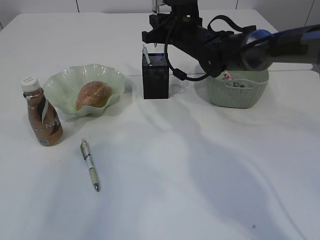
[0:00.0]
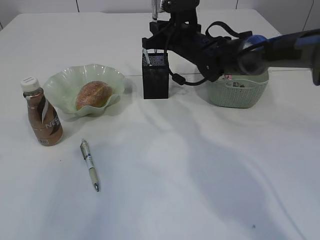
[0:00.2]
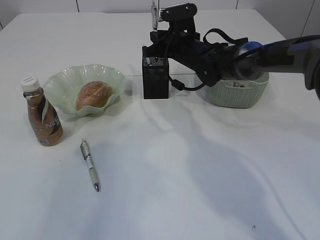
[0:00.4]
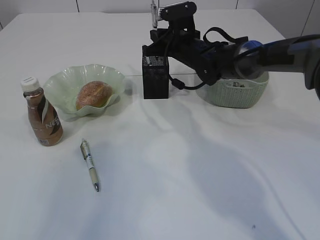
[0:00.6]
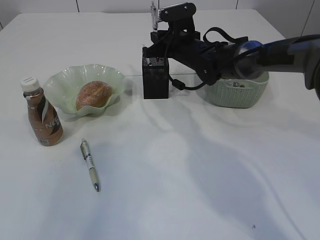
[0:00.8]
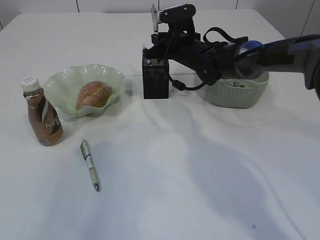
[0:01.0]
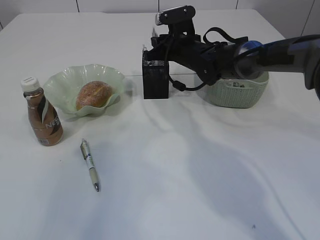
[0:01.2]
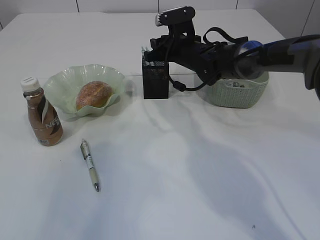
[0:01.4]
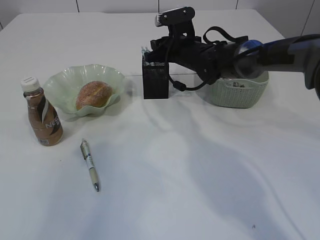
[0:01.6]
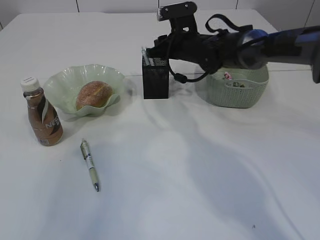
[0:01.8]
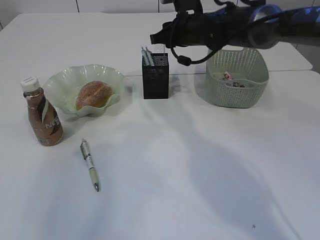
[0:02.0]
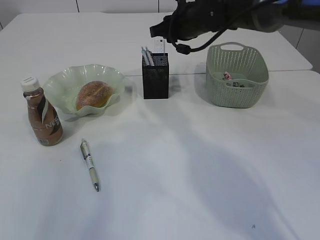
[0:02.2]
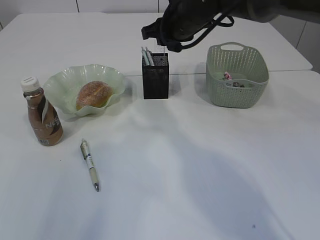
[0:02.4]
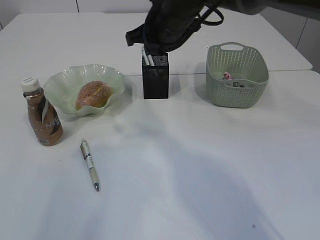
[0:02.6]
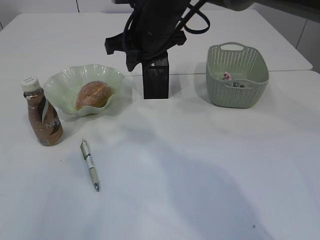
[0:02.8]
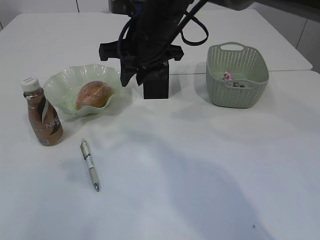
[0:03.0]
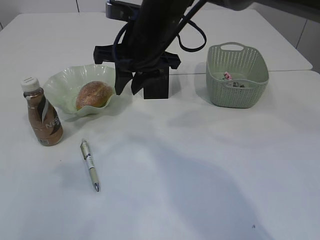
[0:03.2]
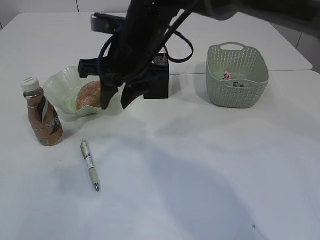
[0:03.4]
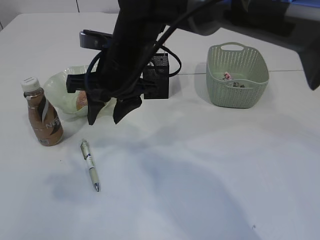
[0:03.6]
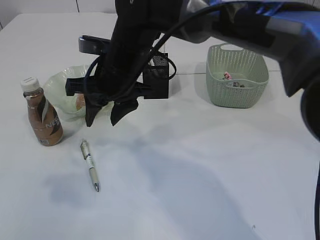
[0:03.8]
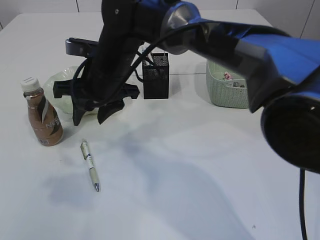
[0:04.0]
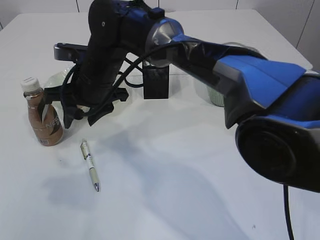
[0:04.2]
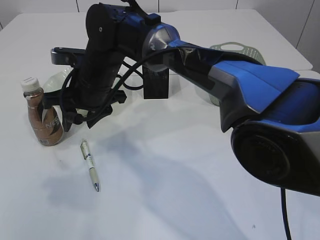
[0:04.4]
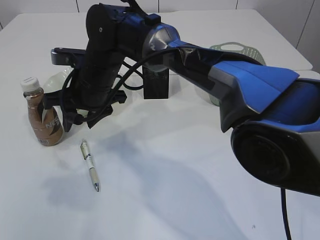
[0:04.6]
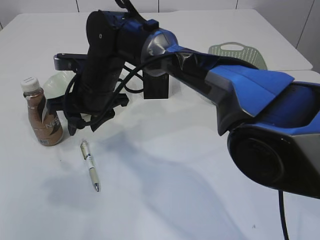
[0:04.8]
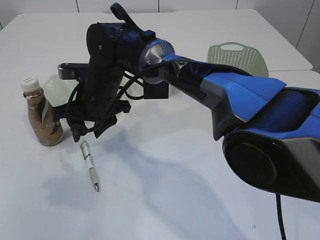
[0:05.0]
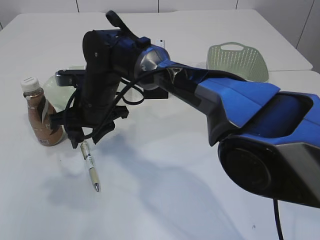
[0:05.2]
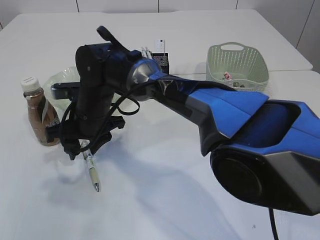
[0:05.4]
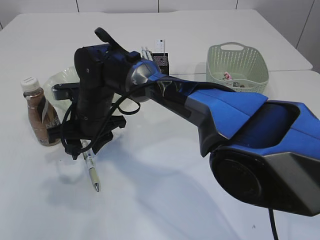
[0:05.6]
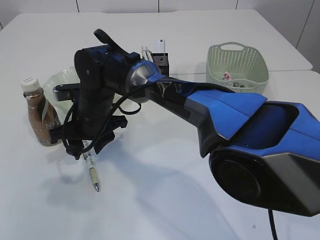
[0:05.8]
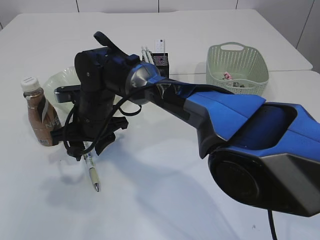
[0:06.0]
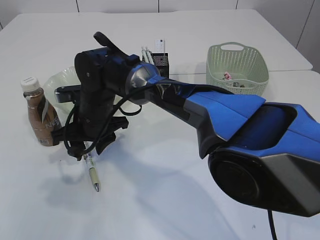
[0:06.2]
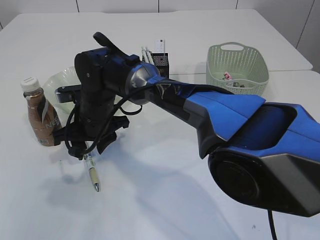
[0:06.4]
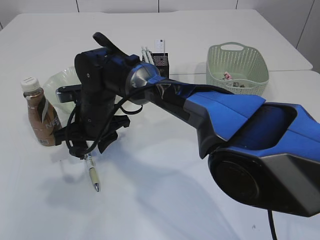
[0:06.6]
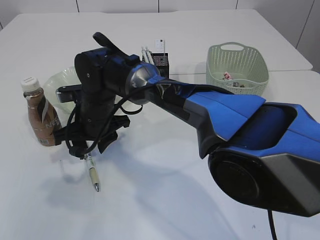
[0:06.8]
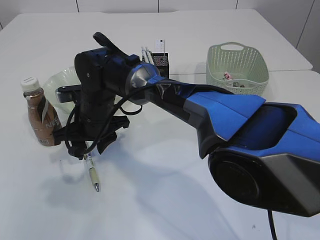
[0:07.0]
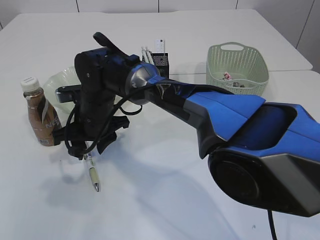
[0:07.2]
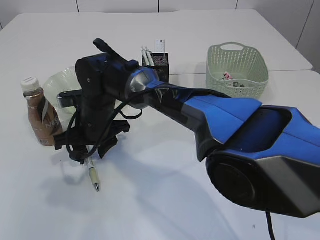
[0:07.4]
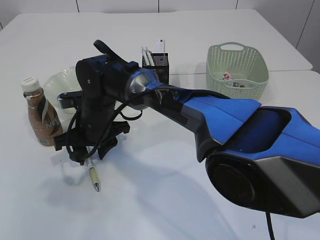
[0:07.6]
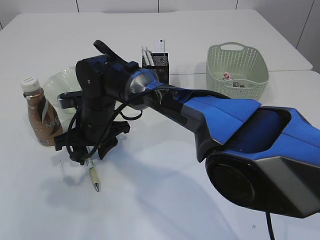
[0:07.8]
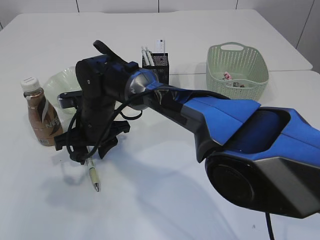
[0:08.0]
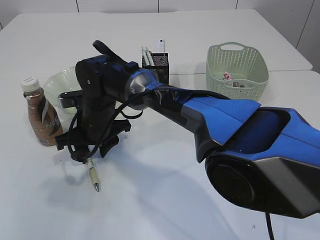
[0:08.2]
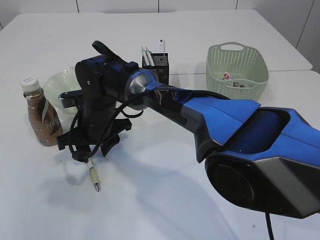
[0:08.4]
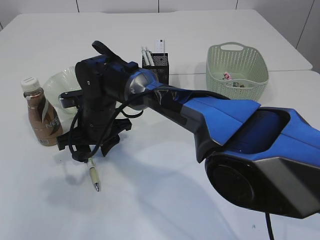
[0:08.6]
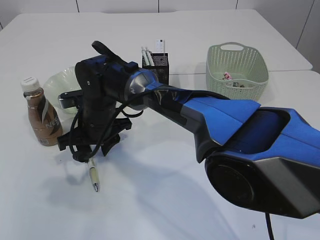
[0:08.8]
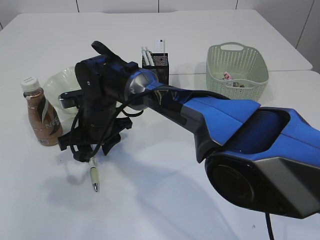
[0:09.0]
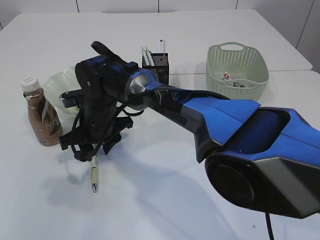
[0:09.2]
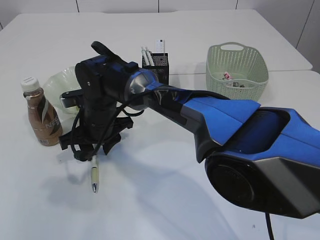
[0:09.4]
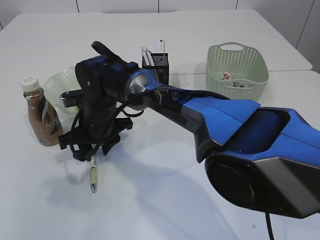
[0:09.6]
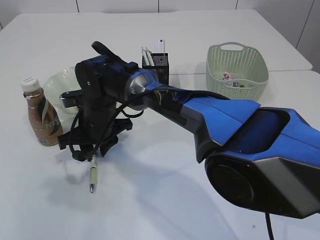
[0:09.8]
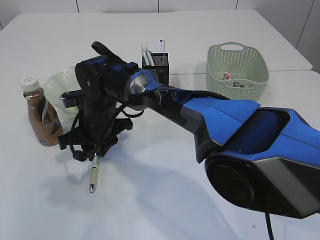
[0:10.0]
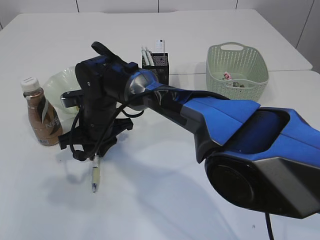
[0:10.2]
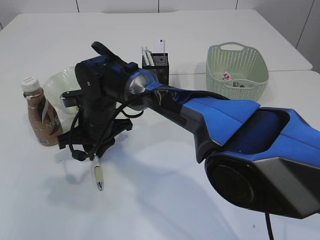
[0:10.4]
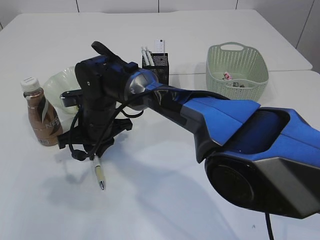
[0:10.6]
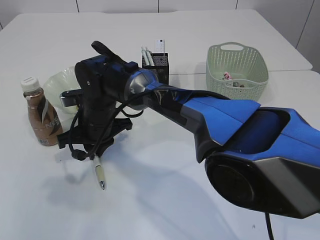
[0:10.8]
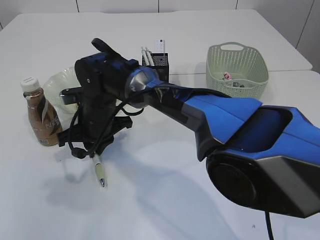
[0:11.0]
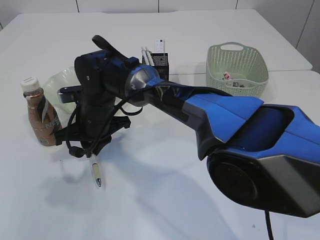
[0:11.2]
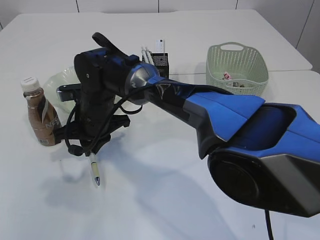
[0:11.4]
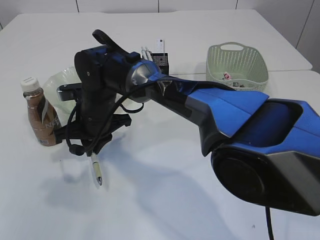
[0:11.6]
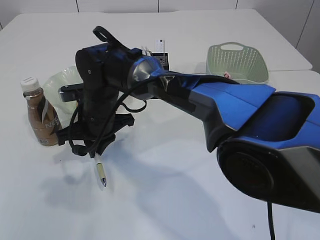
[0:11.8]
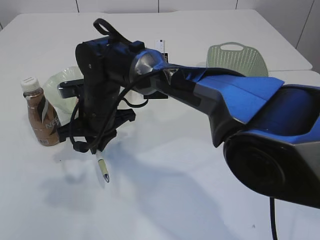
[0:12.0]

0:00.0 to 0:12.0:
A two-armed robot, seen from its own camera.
Step, 0:00.0 to 0:02.2: Place the pen into the pen holder.
0:00.0 to 0:01.6: The right gripper opens.
0:01.6 to 0:03.0: The right gripper heads backward, upward and to the left, covering about 15 cm.
0:03.0 to 0:04.4: The right gripper shifts approximately 10 cm to the left and downward.
0:04.4 to 0:06.0: The right gripper travels downward by some 5 cm.
0:06.0 to 0:07.6: Both grippers stay put.
0:07.6 to 0:09.0: Both grippers stay about where they are.
0:09.0 to 0:10.4: The right gripper closes its fingers.

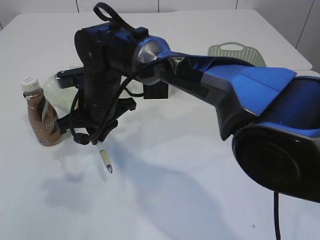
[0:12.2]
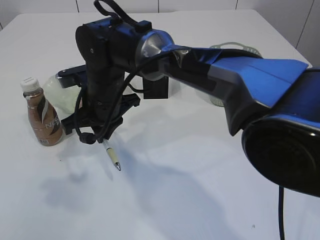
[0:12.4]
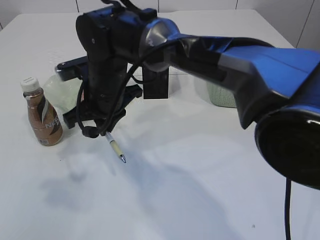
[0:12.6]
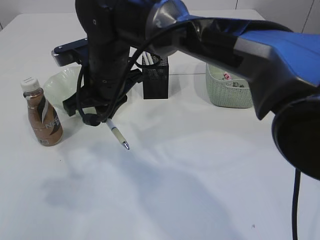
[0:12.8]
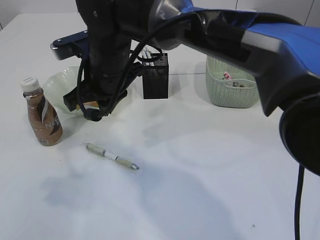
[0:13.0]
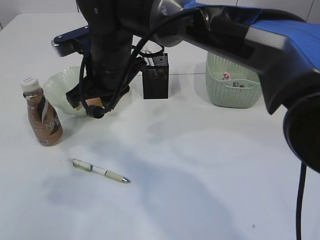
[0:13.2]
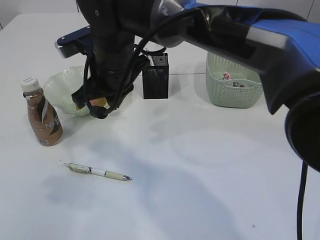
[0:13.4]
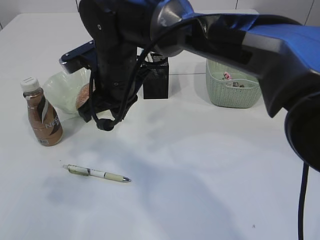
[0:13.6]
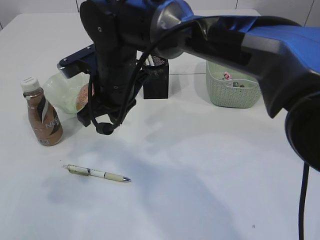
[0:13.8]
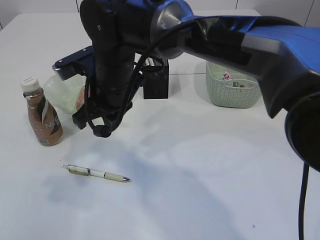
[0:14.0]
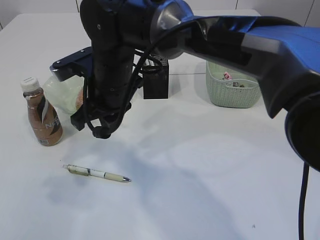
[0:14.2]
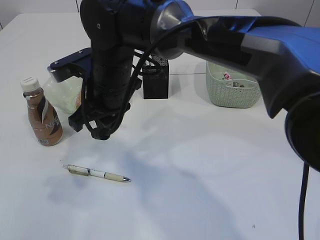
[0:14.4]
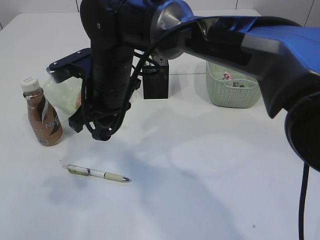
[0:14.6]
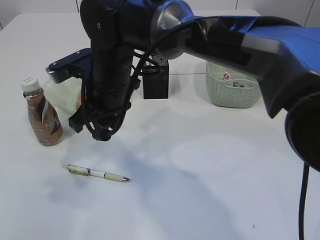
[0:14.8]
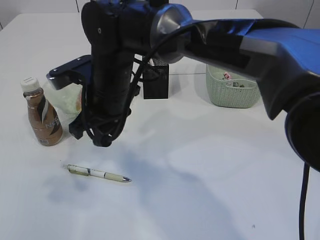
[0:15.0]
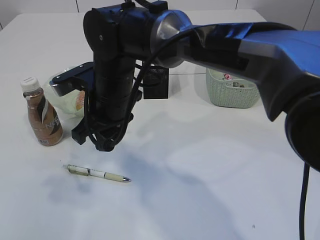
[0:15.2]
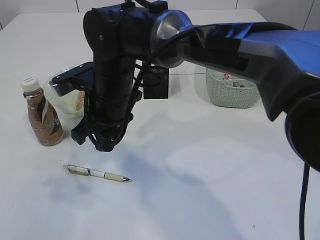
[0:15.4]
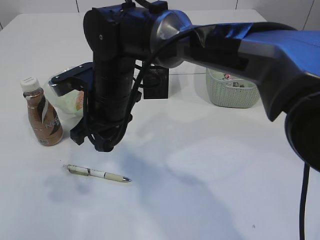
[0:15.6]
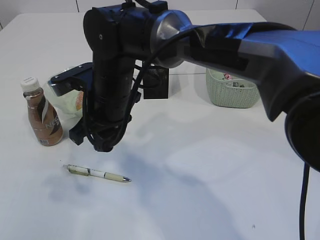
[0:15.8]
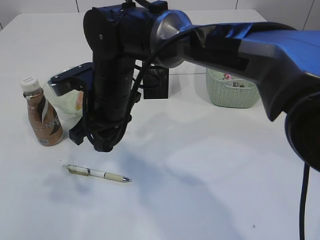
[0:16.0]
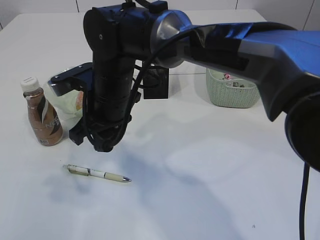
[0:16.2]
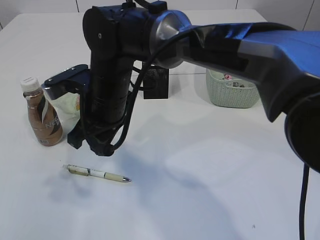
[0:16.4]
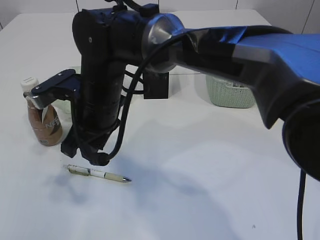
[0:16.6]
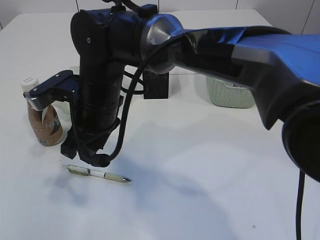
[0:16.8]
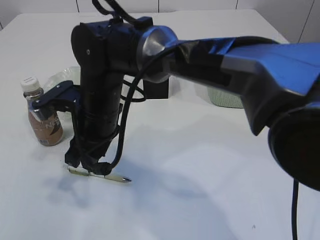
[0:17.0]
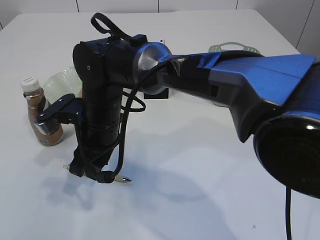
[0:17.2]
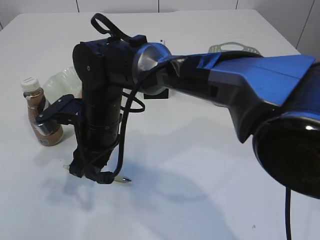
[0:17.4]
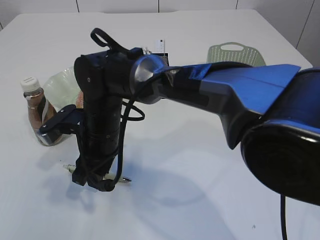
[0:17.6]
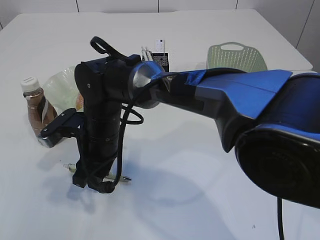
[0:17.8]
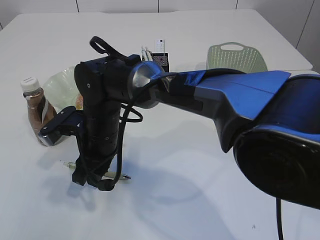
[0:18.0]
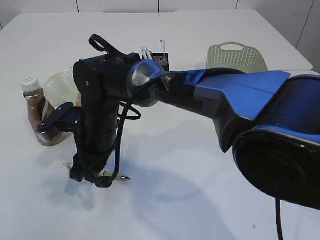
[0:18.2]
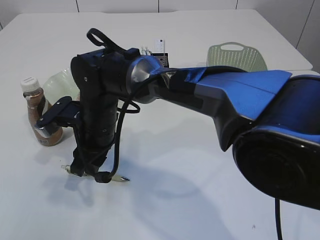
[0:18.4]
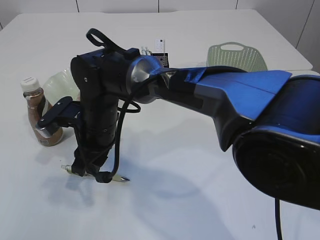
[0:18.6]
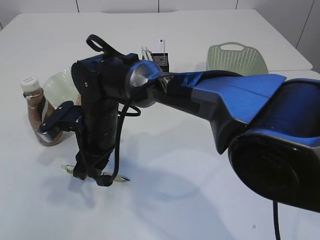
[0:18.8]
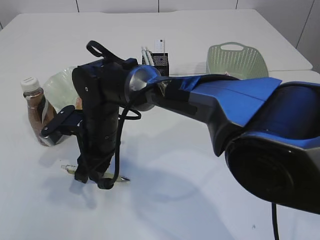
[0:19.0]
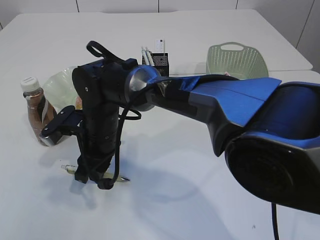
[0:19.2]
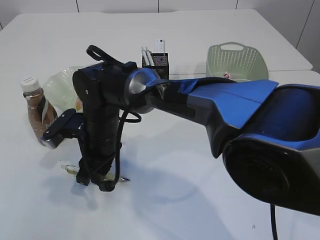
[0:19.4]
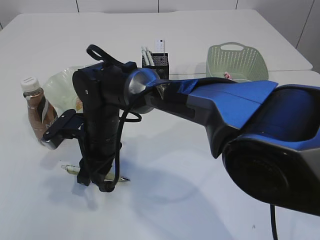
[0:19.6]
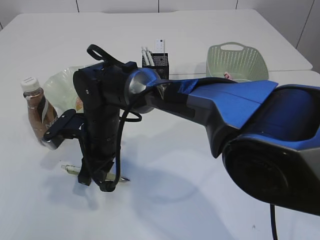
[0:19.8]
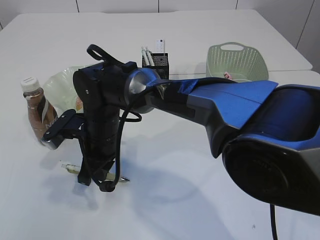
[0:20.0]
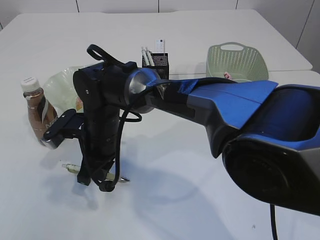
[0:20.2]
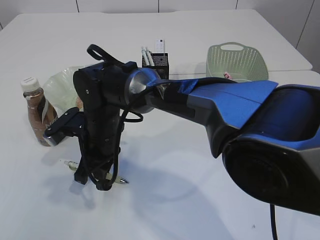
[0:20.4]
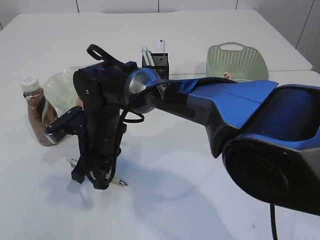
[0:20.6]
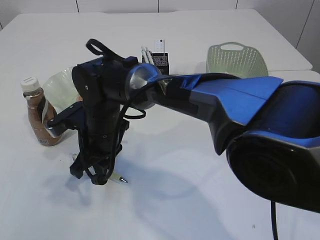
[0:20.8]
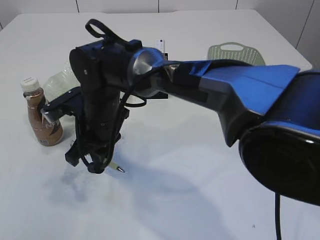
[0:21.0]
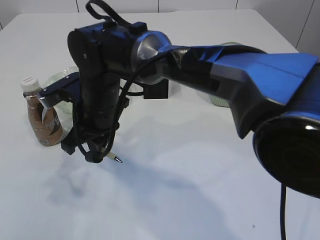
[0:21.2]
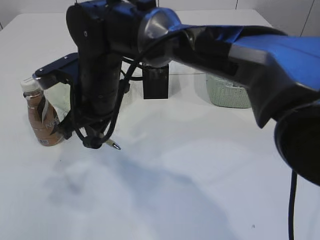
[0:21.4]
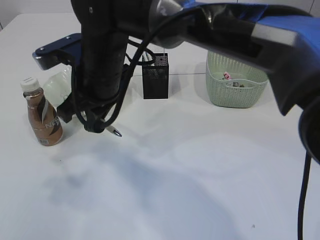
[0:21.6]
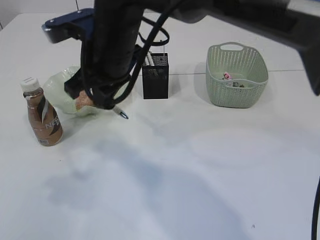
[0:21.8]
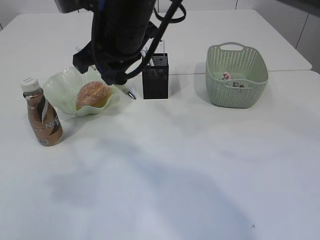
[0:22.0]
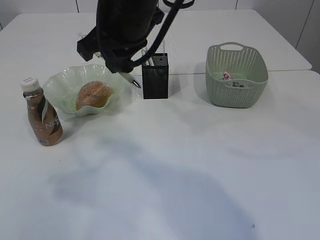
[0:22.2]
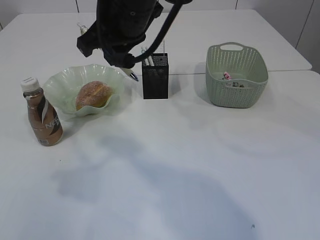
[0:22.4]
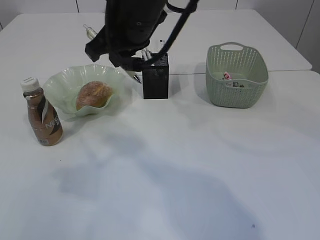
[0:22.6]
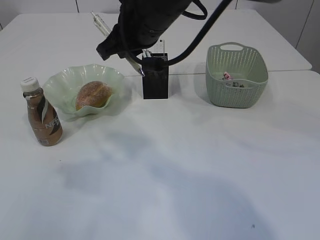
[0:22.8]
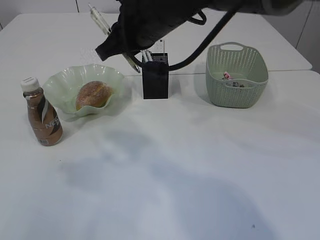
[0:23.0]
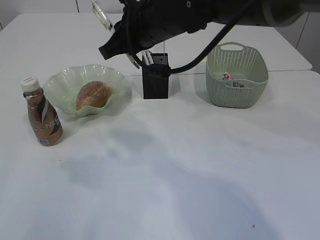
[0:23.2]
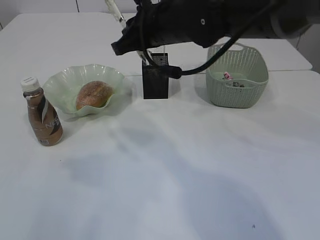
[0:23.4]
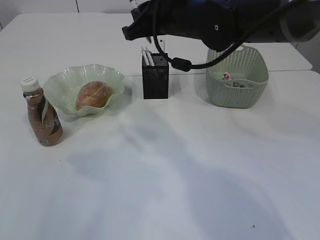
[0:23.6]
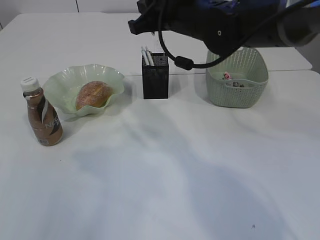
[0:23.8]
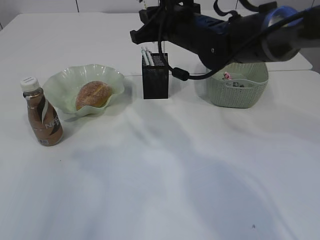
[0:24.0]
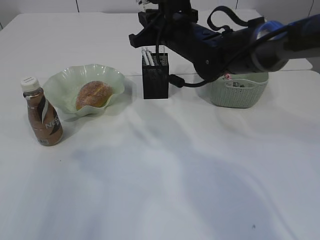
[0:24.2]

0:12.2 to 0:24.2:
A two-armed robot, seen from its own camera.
Step, 0:12.2 to 0:21.4: Pick up the pen with right arm.
0:12.2 to 0:13.8: The right gripper changes place by about 5 cm.
0:13.8 to 0:15.2: The grippers move only a little.
0:15.2 to 0:16.6: The grippers make only small movements.
0:16.6 to 0:18.2: The right gripper goes approximately 5 cm downward.
0:18.2 to 0:19.8: The grippers move only a little.
0:19.8 to 0:21.2: The right gripper goes about 5 cm upward.
0:21.2 to 0:22.6: The right gripper goes approximately 15 cm upward and to the right.
0:22.6 to 0:24.2: The right gripper goes roughly 15 cm downward, forward and to the right.
